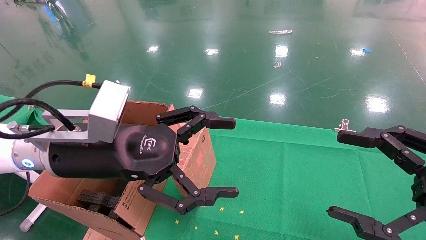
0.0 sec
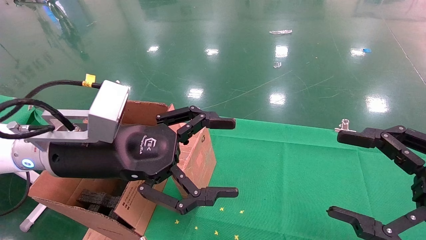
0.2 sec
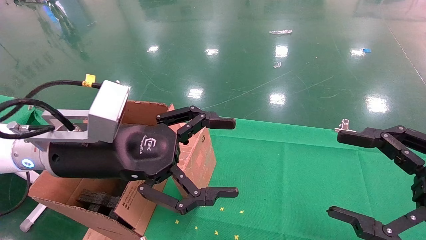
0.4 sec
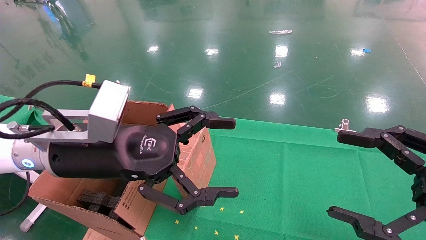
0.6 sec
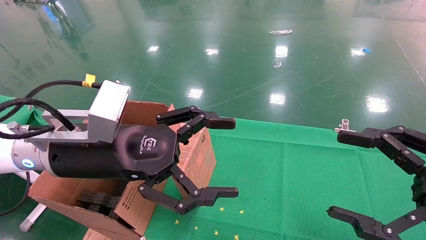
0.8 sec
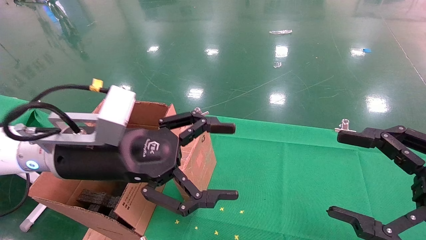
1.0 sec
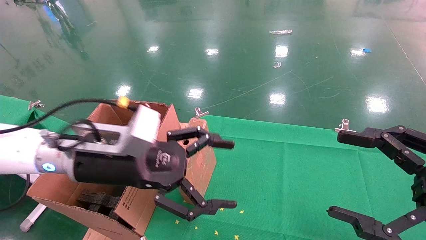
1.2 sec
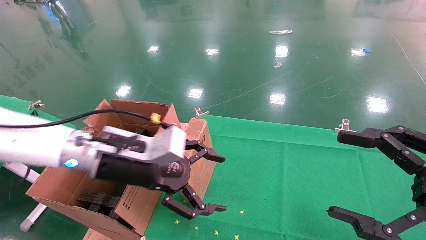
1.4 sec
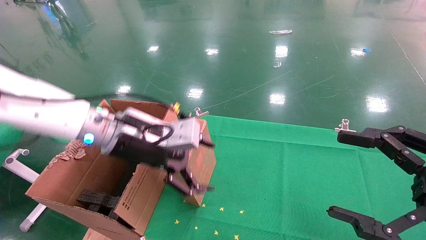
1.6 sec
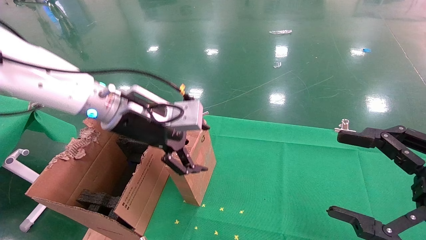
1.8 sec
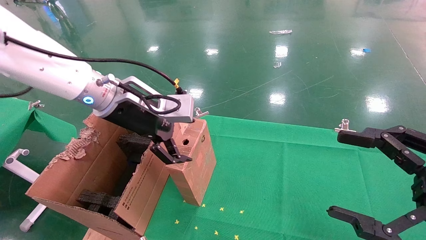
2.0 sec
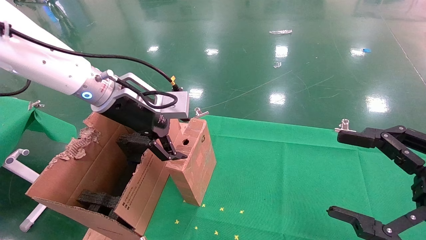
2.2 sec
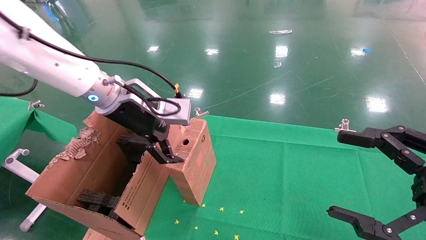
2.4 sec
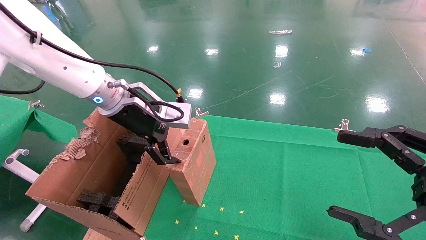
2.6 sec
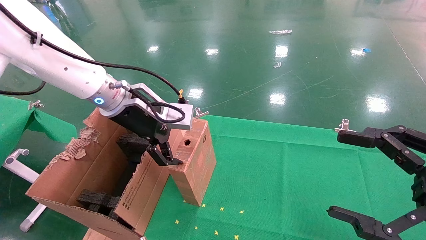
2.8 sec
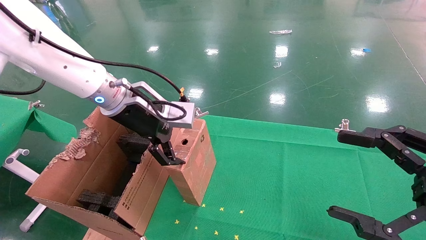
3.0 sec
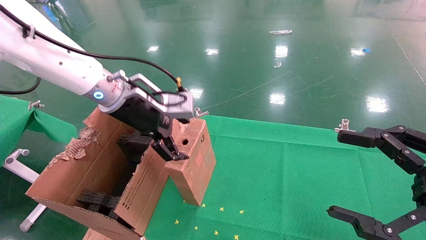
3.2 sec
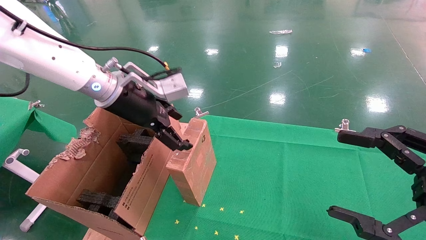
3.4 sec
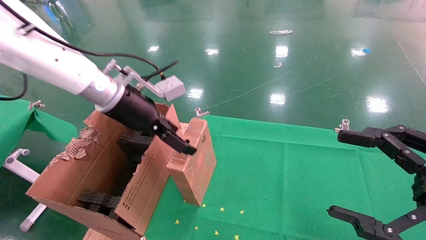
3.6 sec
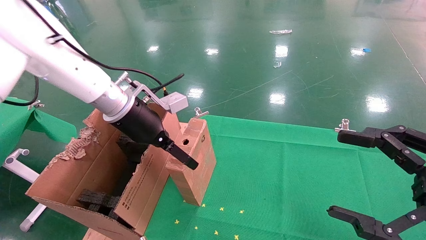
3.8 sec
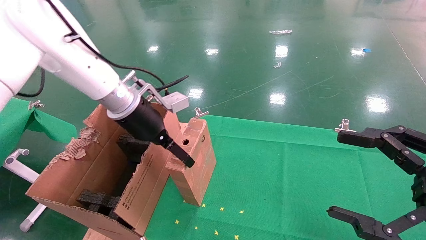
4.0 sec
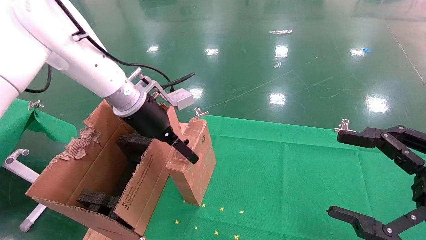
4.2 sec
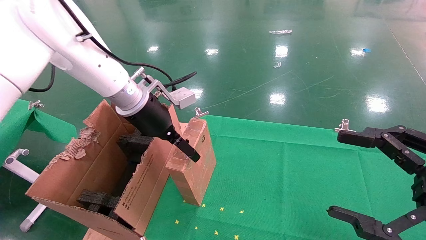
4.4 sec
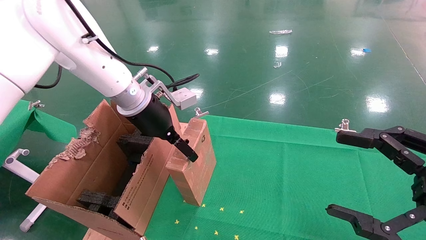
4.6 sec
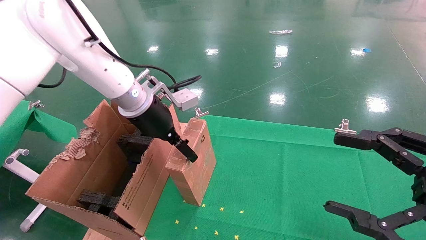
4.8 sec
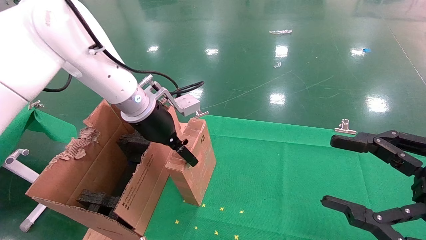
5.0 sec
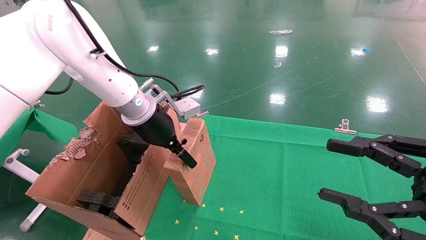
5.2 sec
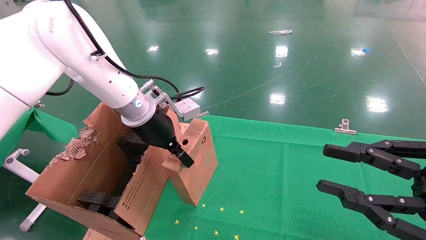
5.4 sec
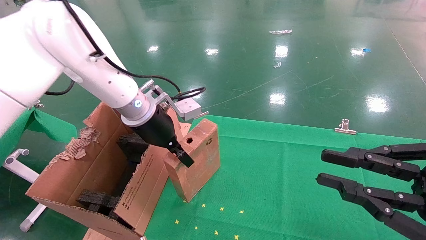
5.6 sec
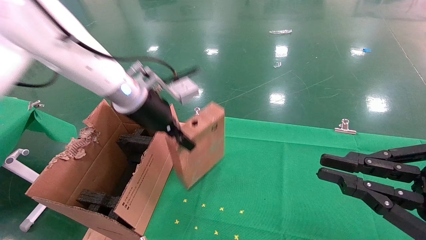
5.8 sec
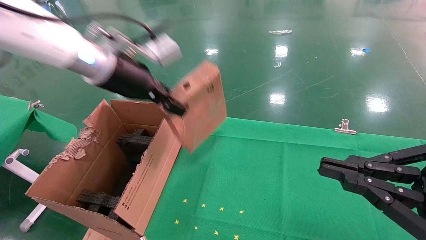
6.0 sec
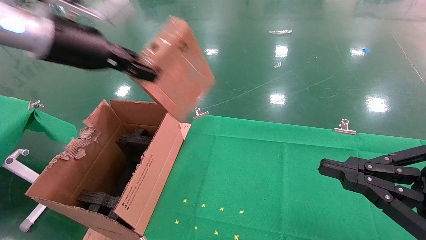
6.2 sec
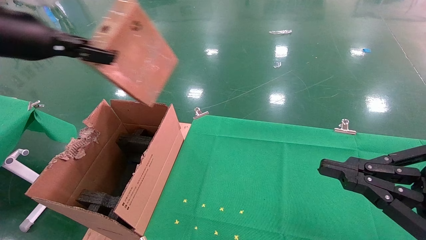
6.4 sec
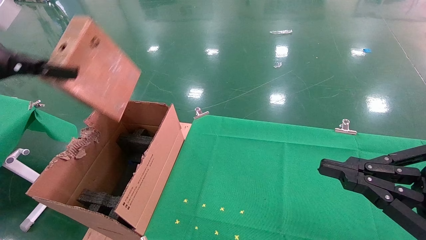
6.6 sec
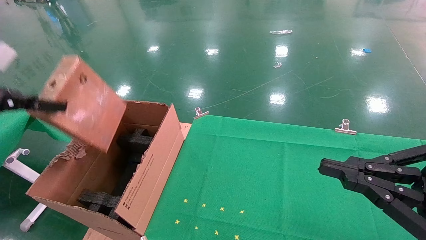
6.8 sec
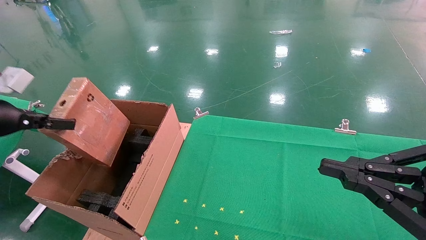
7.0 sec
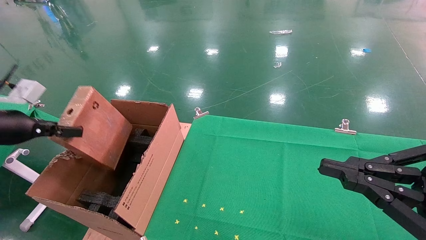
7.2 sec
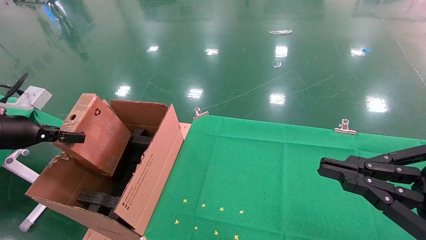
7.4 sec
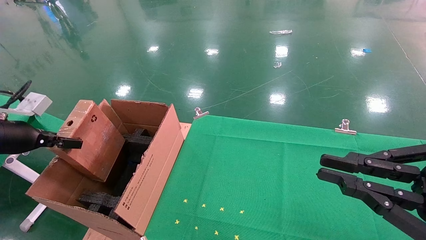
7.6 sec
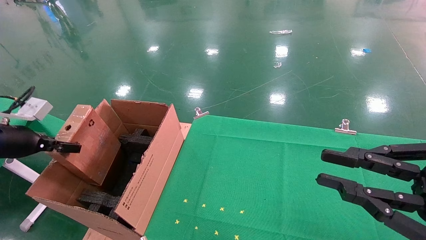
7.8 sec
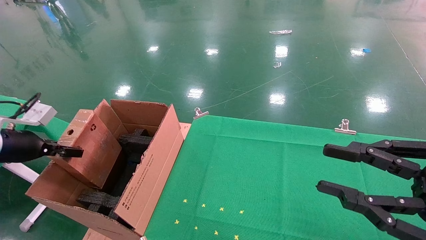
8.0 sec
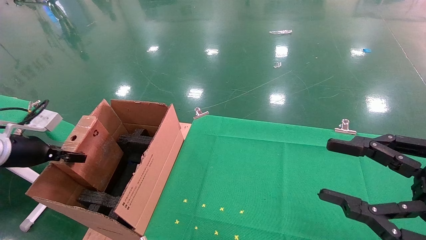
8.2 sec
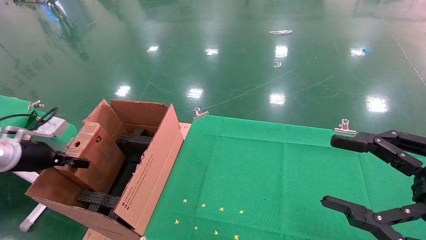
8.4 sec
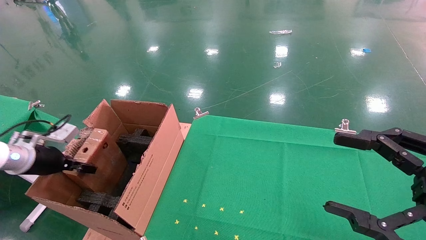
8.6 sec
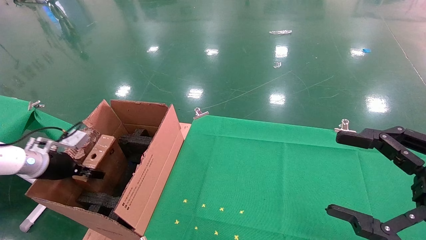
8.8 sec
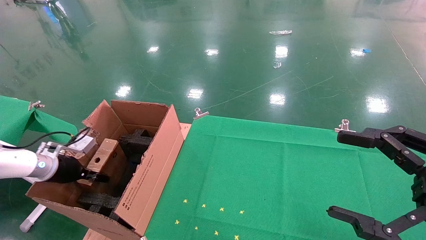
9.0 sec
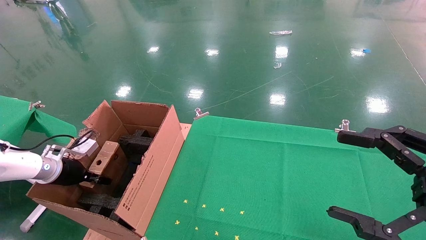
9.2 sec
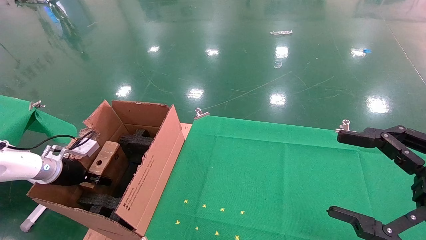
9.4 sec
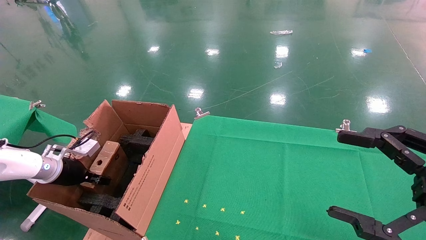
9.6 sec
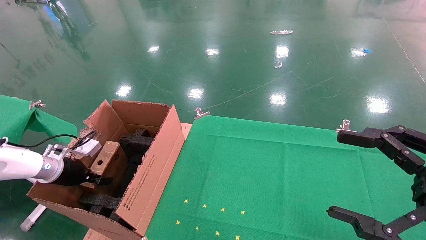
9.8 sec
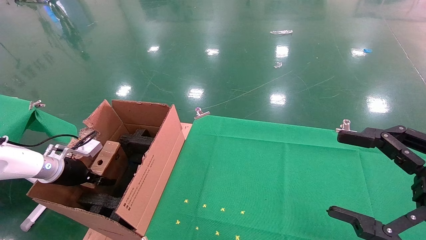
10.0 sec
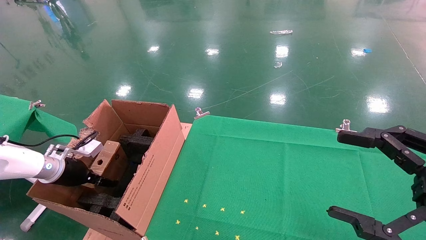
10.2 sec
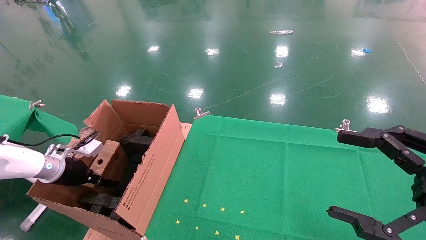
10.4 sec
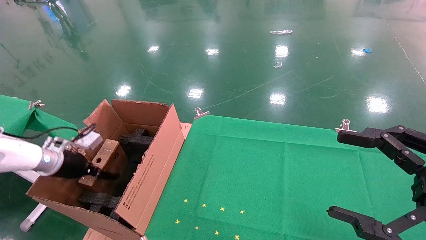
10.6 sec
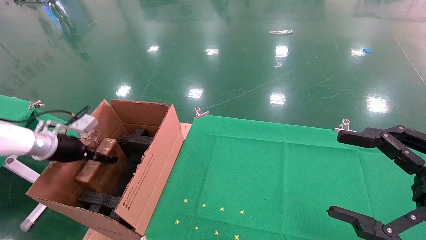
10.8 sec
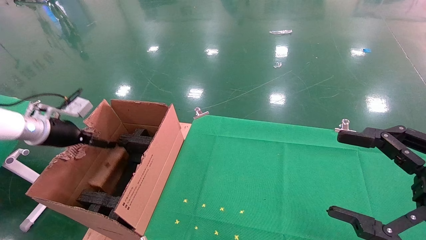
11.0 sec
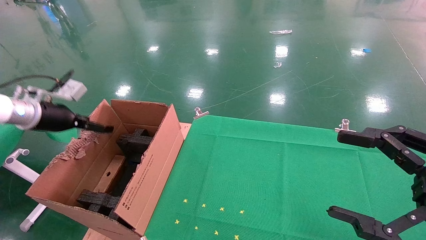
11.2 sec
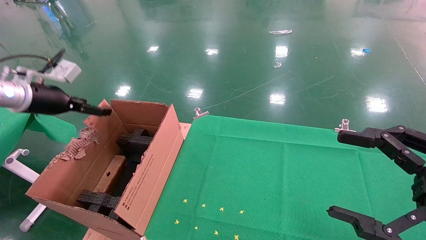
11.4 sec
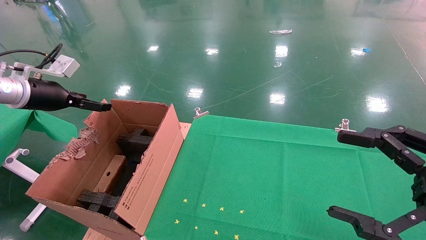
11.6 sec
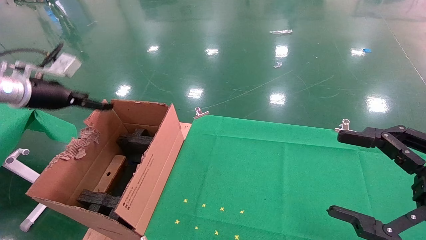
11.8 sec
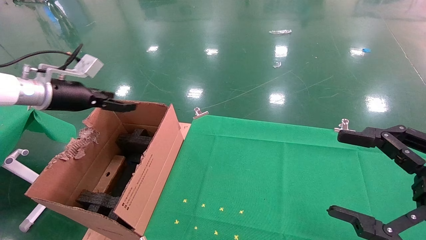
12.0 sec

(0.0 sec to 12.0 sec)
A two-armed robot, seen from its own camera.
Task of the whole recording: using a robotic arm to pick up a cardboard box and palace it the carton.
Step, 1.0 sec - 5.6 sec: Pick up the mouse and the power cord paper box.
Step, 5.8 sec - 11.6 sec: Place the mouse and the power cord paper box into the container.
0.0 sec - 1.6 sec: The left gripper goes about 10 cm forward.
1.6 sec - 3.0 sec: The left gripper ends up about 5 cm from where it was.
4.4 sec - 6.0 sec: The right gripper closes up. Meanwhile the left gripper shifts roughly 10 cm upward, and closes its fingers.
6.0 sec - 7.6 sec: The left gripper travels to the left and downward by roughly 30 cm.
7.6 sec - 9.0 sec: The left gripper heads downward and forward, covering approximately 15 cm, while the right gripper opens up.
9.0 sec - 10.4 sec: The left gripper opens.
10.4 sec - 12.0 sec: The left gripper goes roughly 20 cm upward.

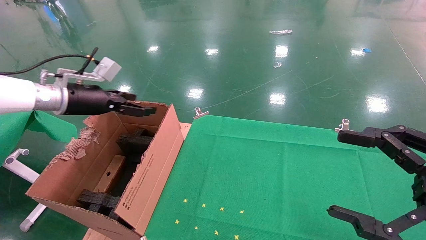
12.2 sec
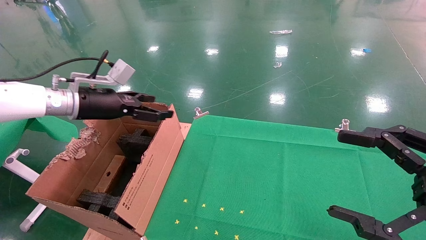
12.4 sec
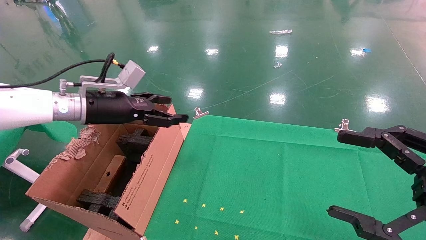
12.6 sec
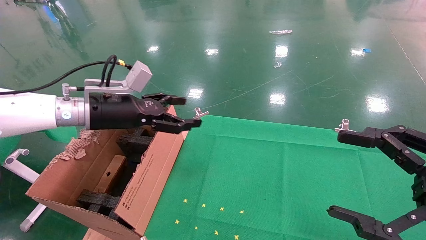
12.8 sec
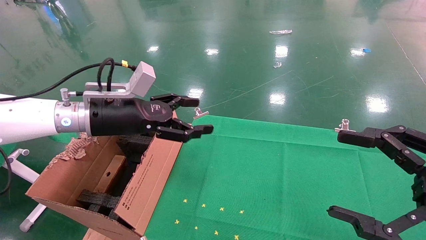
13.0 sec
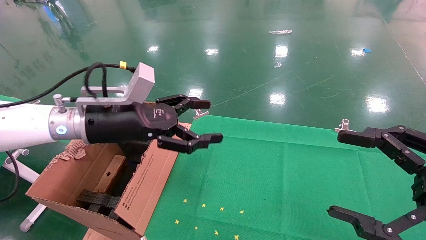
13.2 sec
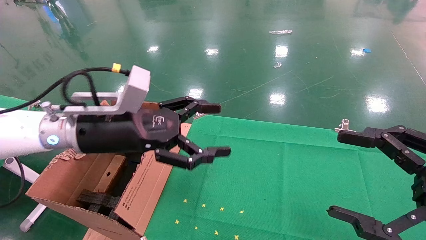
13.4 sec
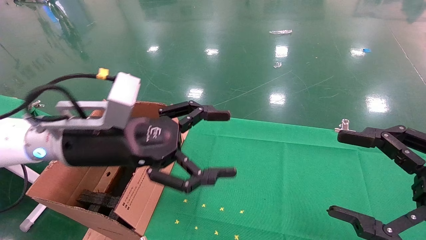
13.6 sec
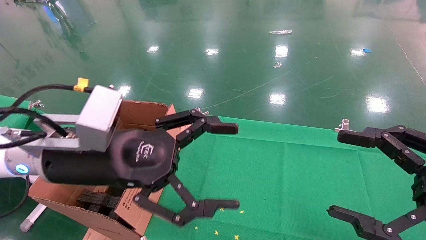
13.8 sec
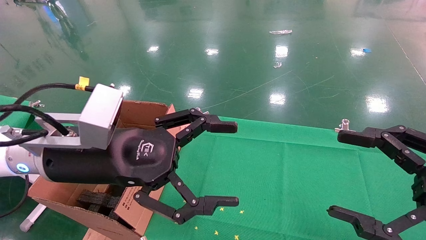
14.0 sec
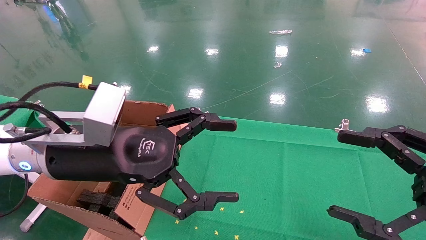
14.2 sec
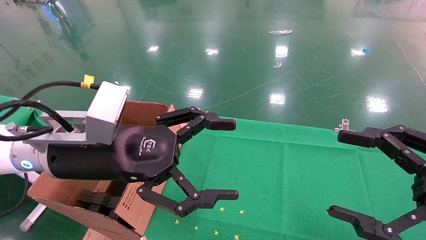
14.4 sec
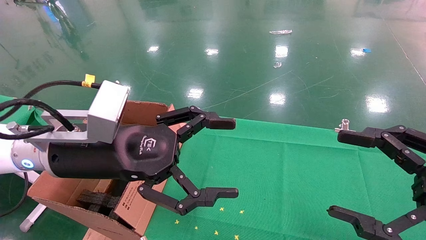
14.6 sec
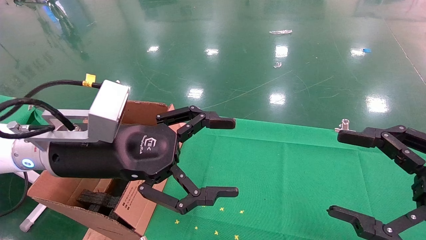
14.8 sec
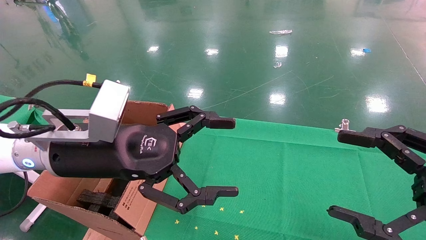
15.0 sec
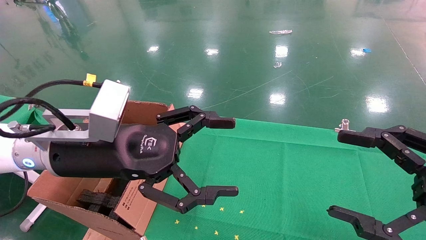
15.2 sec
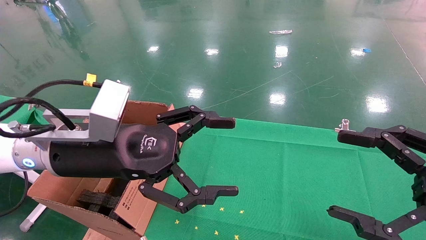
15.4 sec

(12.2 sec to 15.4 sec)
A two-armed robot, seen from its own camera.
Task of the whole recording: using a robotic arm to pick up a cardboard box and palace it the carton.
12.2 sec - 13.8 sec: The left gripper is displaced to the right and backward by about 25 cm.
13.8 sec - 15.4 sec: Both grippers stay about where they are.
